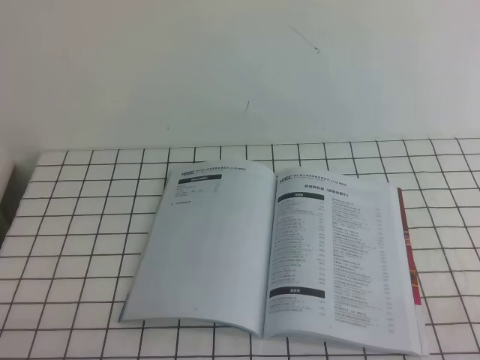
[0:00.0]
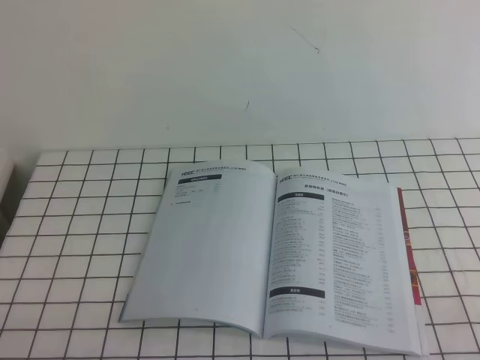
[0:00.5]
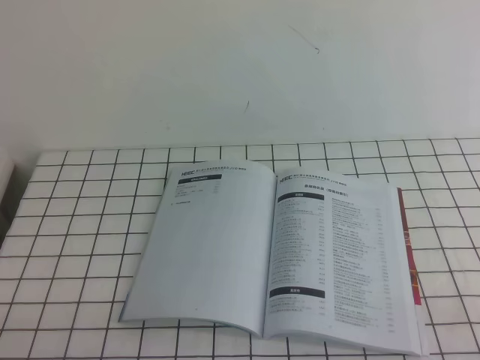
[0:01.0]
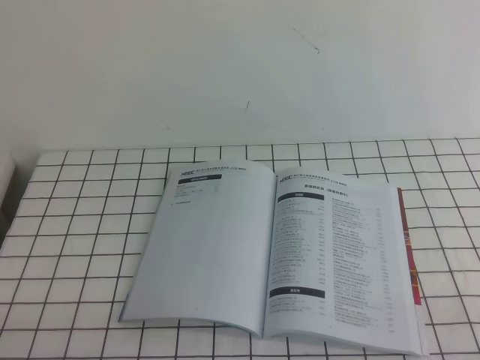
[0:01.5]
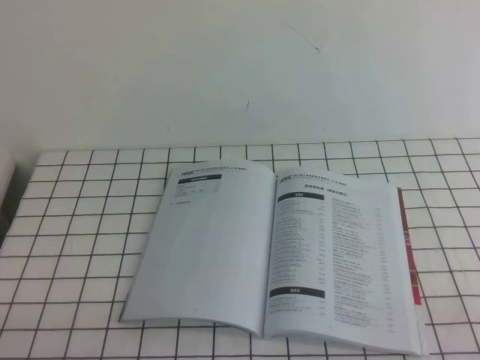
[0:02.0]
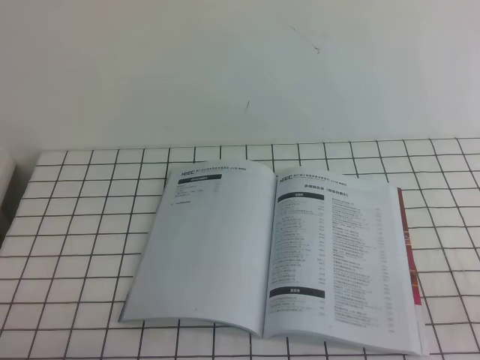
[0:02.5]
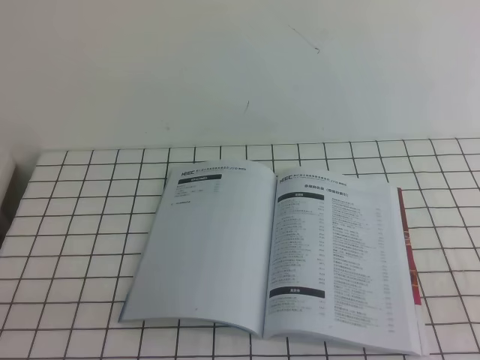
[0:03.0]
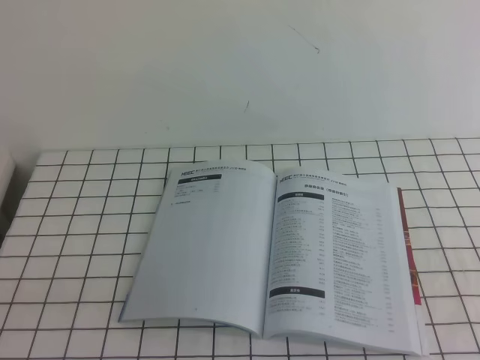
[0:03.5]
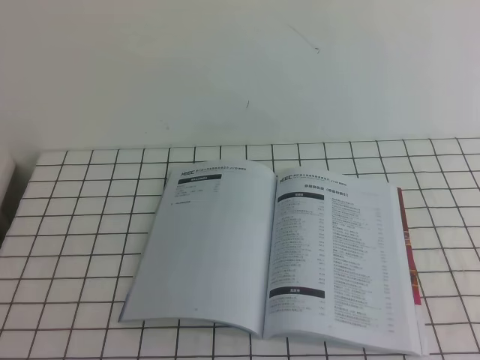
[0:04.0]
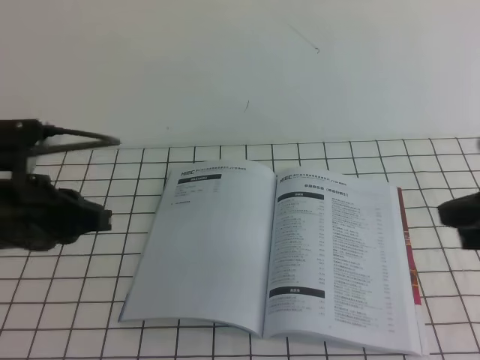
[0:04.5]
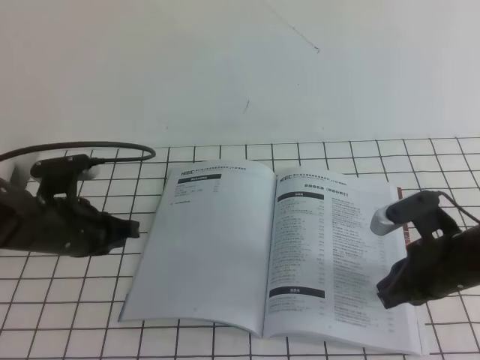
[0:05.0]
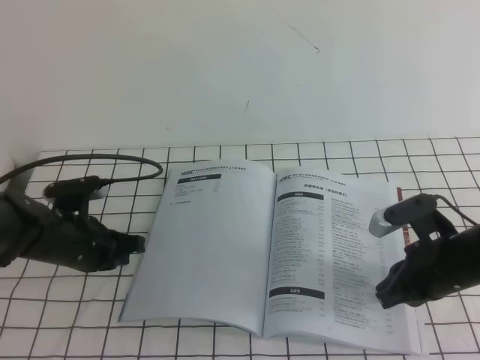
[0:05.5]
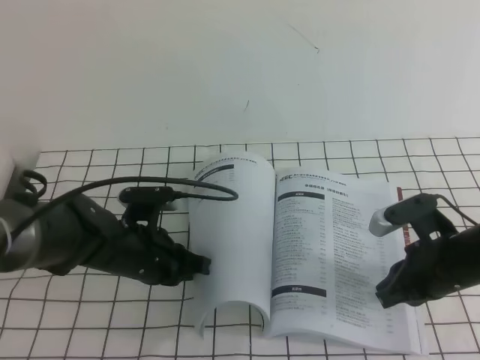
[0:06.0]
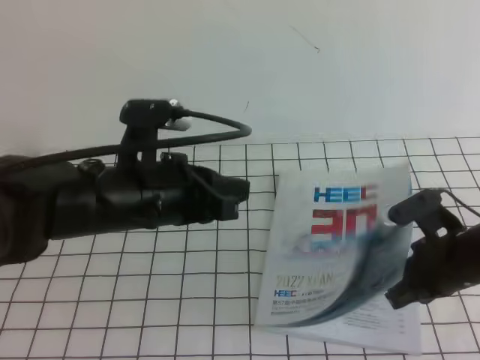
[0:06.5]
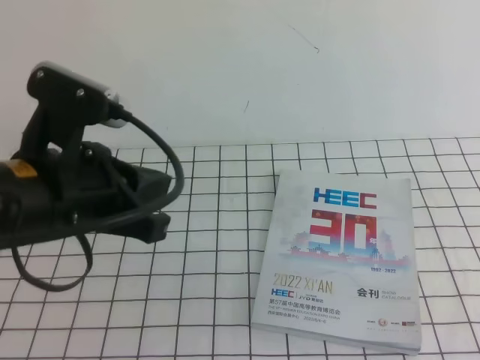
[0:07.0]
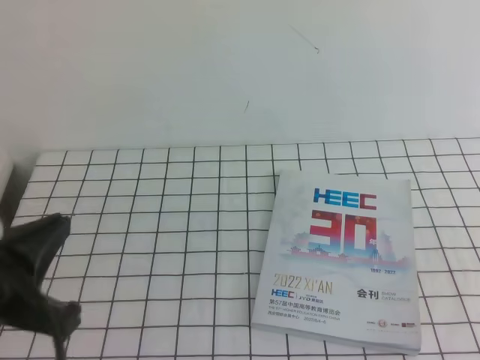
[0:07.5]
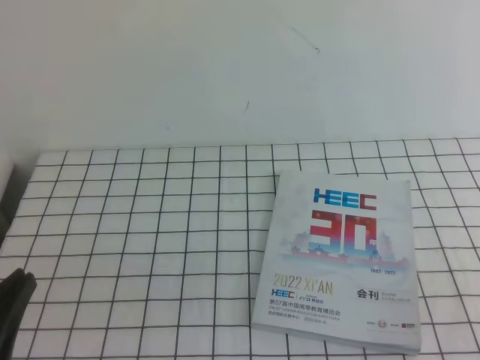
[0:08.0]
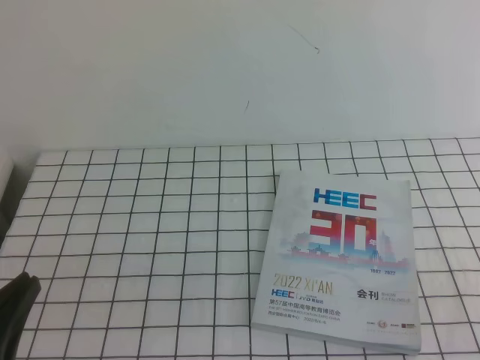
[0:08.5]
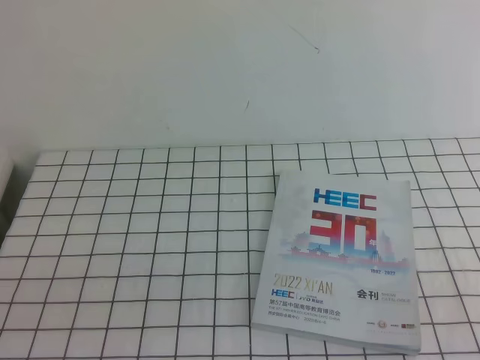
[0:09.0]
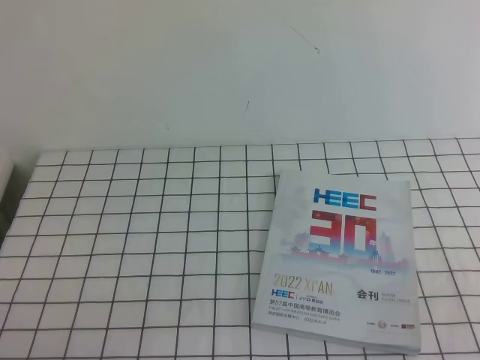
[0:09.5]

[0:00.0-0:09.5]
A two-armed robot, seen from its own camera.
Task of the whole recording: on the white tablecloth, hold the book with one hand and close it with the other.
0:00.0 to 0:02.0: Both grippers stay about where they are.
0:04.0 to 0:05.5: The right gripper heads downward, forward and to the left, covering about 30 cm. The left gripper travels forward and downward by about 30 cm.
0:05.5 to 0:07.5: The left gripper goes about 25 cm backward and upward, while the right gripper moves upward, backward and to the right, roughly 25 cm.
0:07.5 to 0:09.5: The right gripper goes roughly 10 cm backward, while the left gripper goes approximately 15 cm downward, backward and to the left.

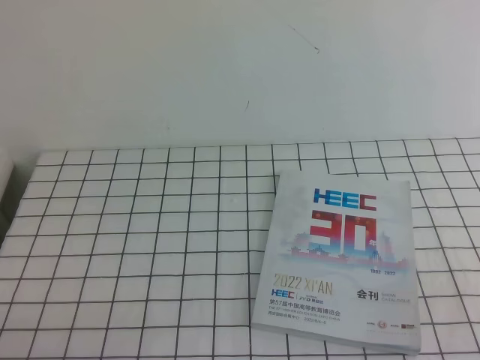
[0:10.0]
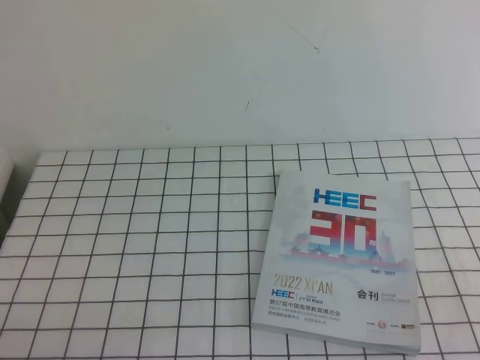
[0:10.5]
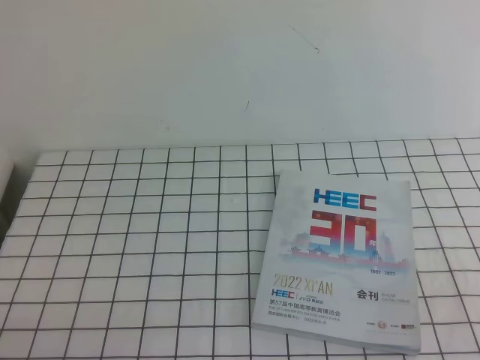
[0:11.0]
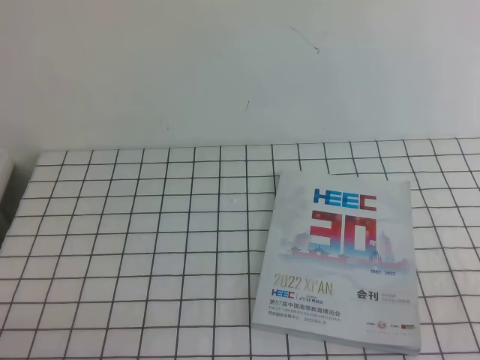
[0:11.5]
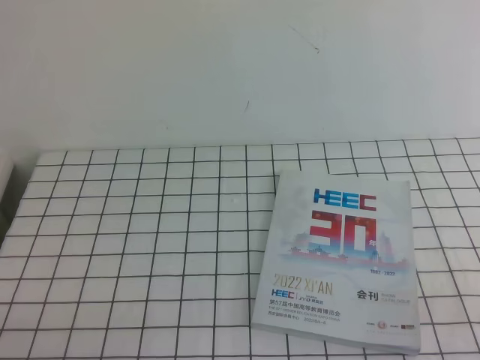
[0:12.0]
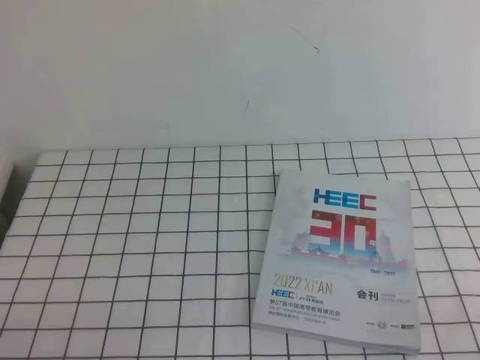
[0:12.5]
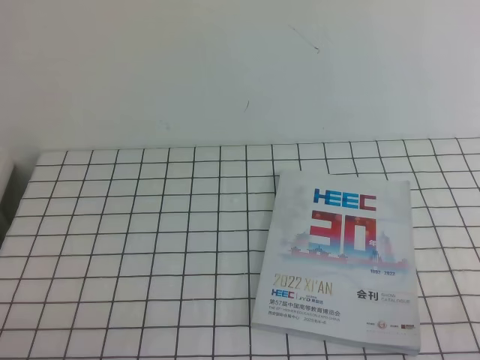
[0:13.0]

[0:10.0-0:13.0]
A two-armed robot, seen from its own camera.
Task of the whole recording: on the white tablecloth, hold the book with one hand and close it with the other.
0:10.0 to 0:11.5: The two grippers keep their place.
